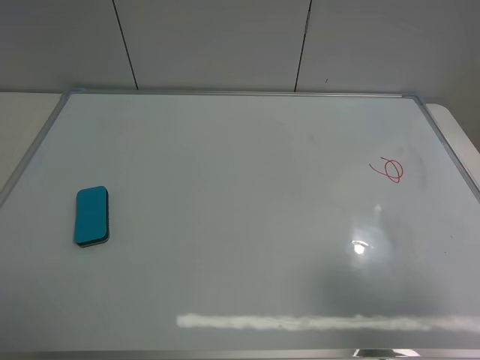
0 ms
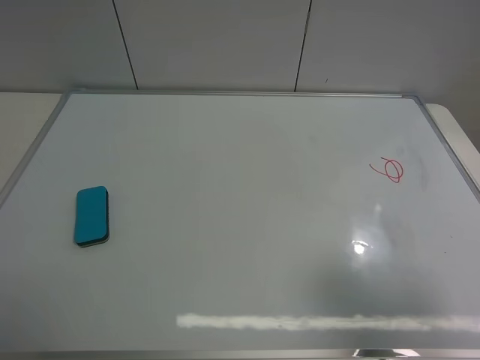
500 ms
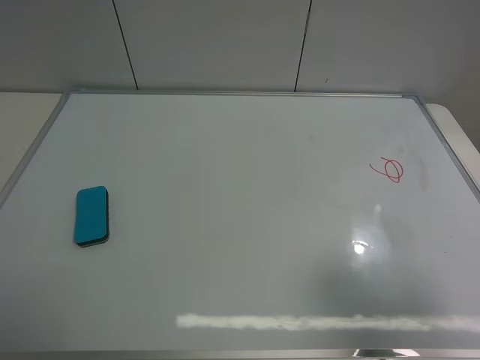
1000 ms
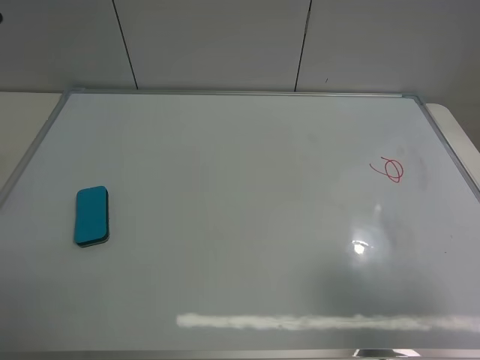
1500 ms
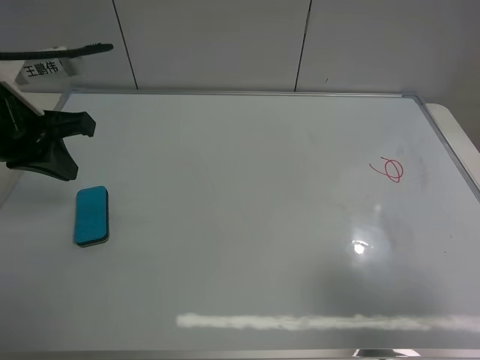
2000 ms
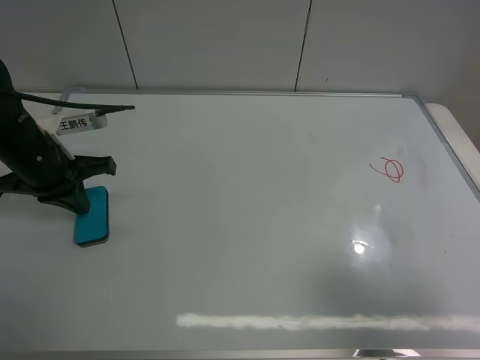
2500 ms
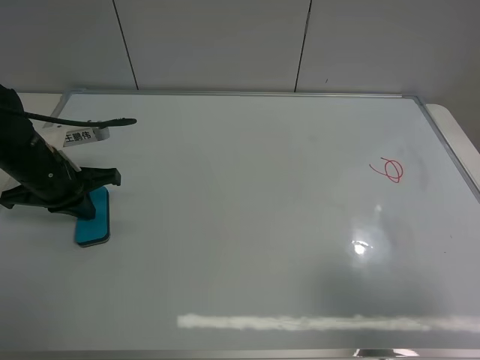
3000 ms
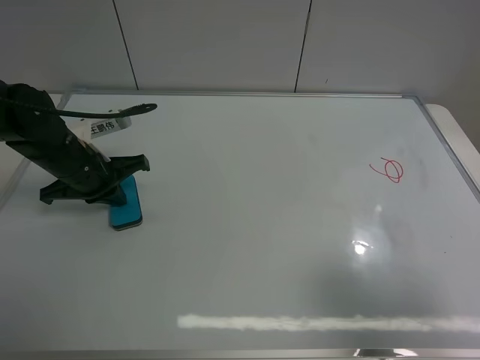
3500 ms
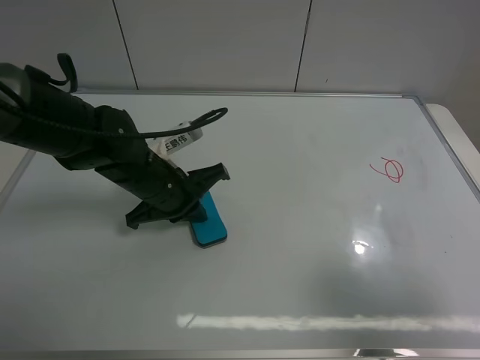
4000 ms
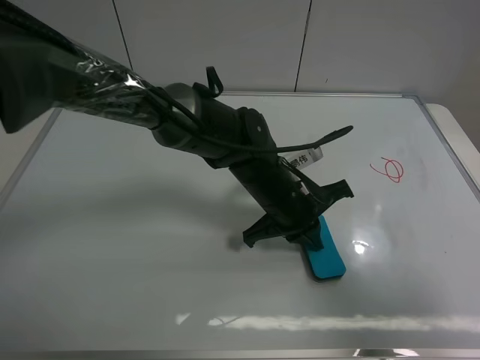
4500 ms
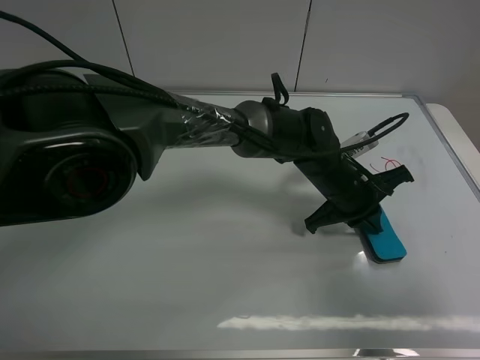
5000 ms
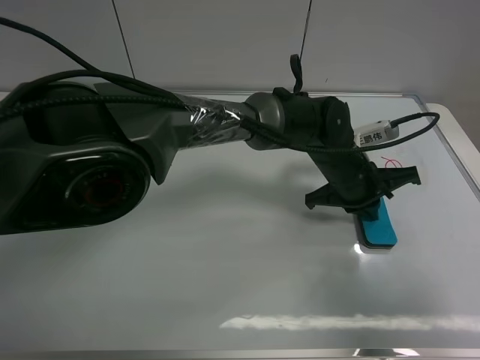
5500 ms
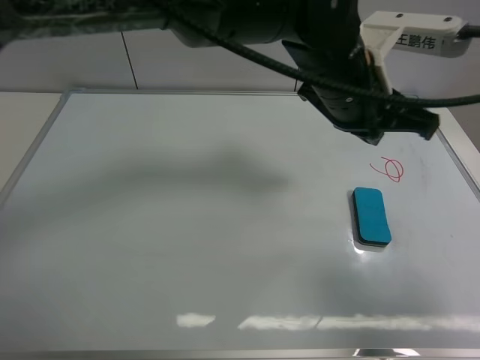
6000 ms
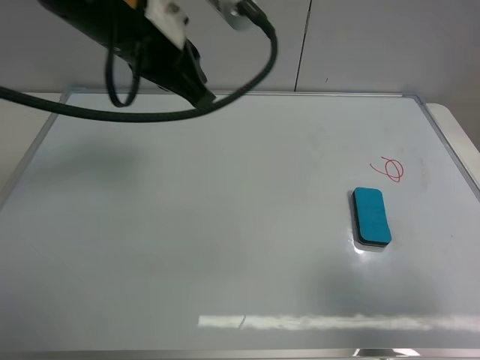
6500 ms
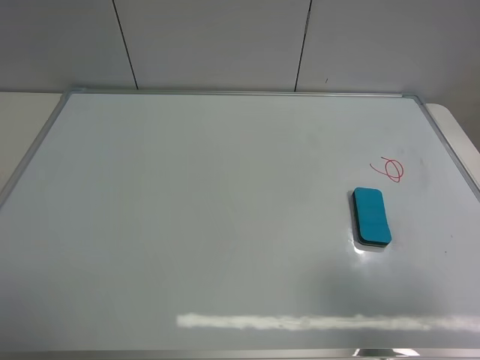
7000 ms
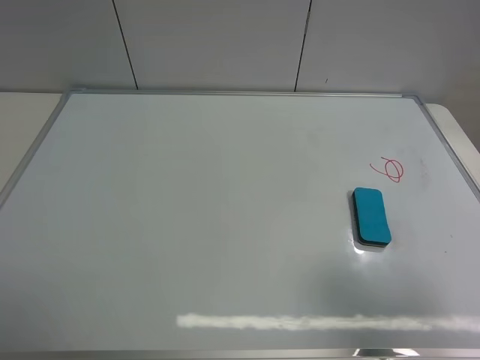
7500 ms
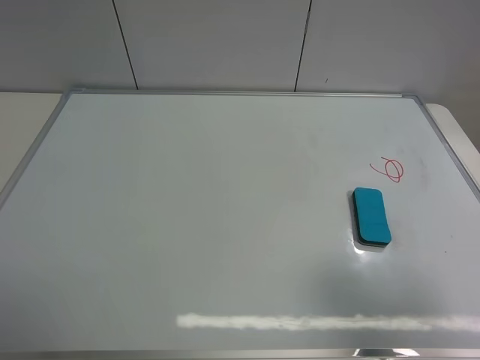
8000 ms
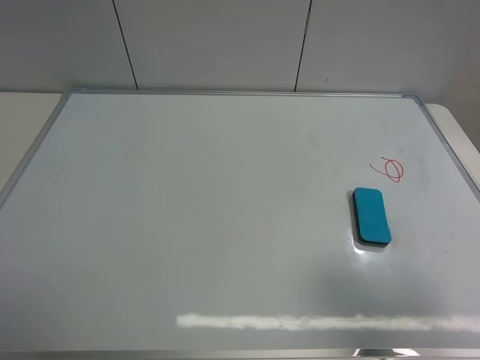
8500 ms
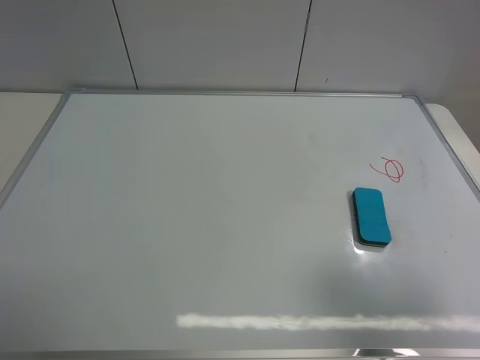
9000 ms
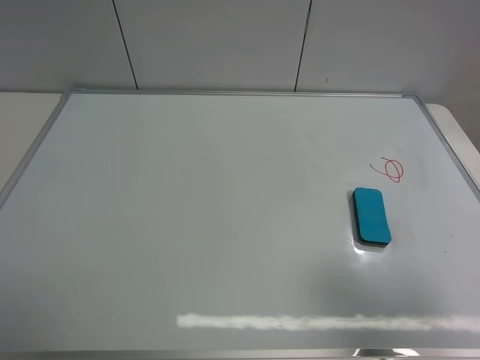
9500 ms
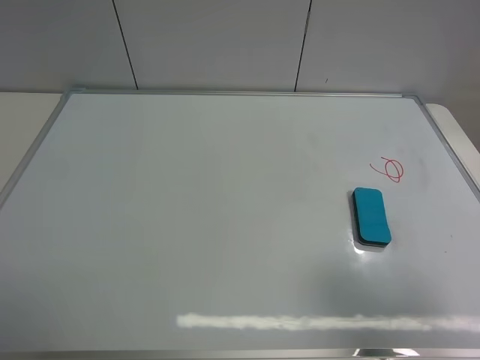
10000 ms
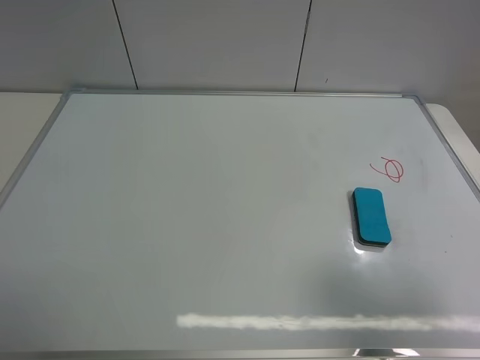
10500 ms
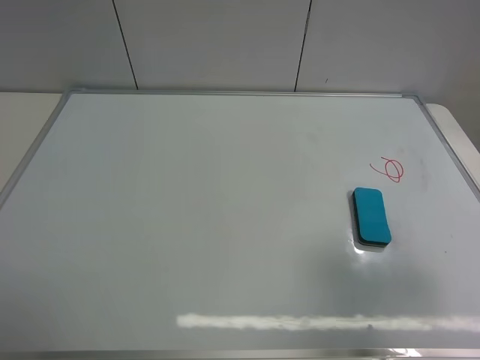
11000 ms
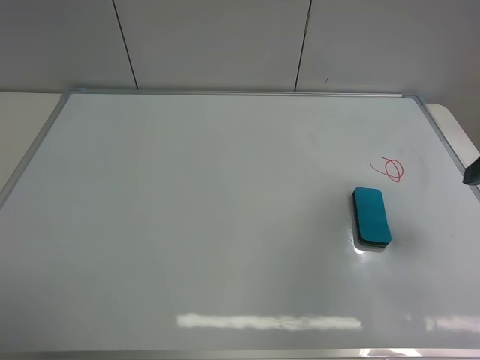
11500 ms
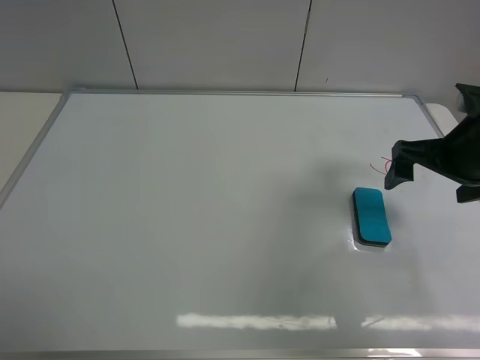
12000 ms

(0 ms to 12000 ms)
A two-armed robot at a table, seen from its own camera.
Task of the whole recording: use the left gripper to place the eraser in the right, use the right gripper to pick up the eraser, wipe the notes on the whiteboard clean, and then put it down.
Step, 0 ms - 5500 ms: Move the board eraser to the right of the whiteboard with left gripper.
0 ms - 2000 ms: The left gripper travels forward by some 25 cm, and closes.
2000 ms - 4000 ms: The left gripper heads downward and to the right, covering about 20 cm.
4000 ms - 6000 ms: The left gripper is displaced to the right and upward by approximately 25 cm.
6000 ms - 8000 ms: The left gripper shifts some 50 cm to the left and backward, and opens.
10000 ms - 12000 ms: The right gripper heads forward, covering some 25 cm.

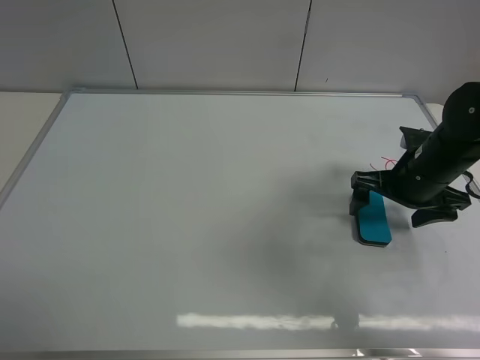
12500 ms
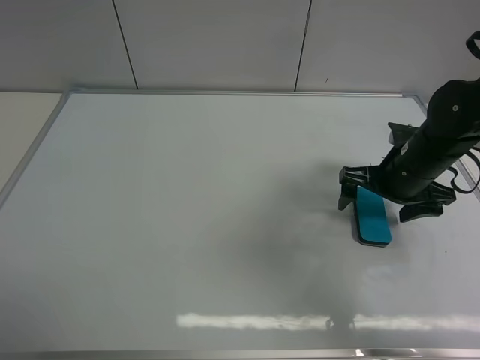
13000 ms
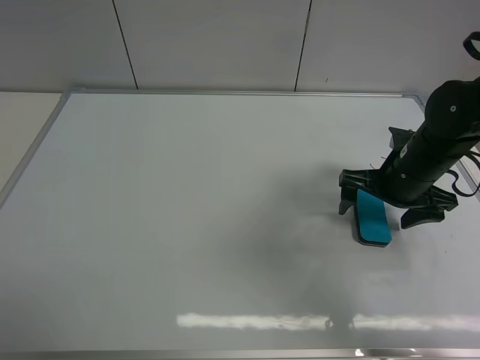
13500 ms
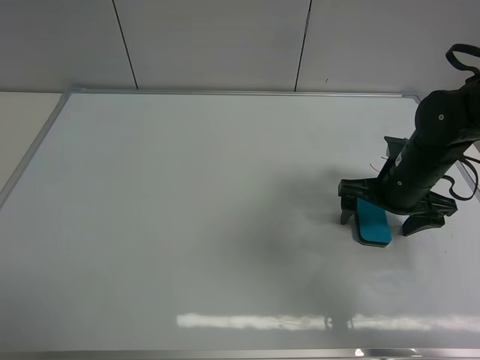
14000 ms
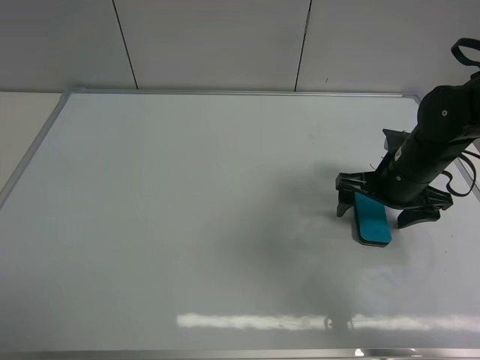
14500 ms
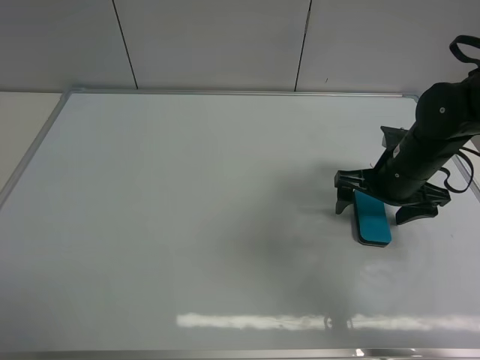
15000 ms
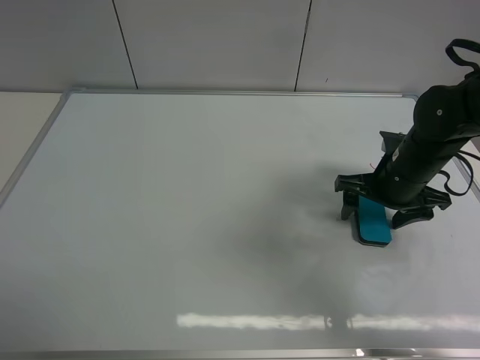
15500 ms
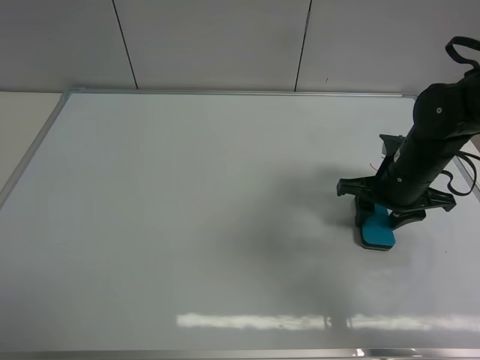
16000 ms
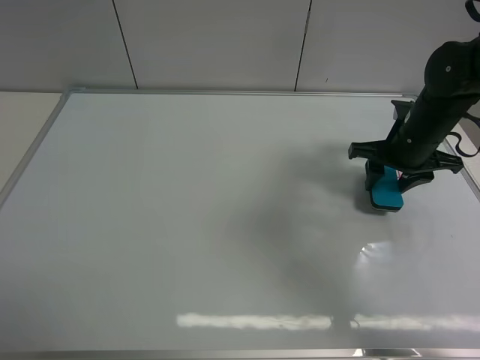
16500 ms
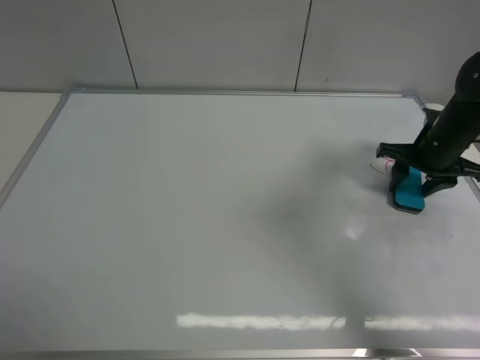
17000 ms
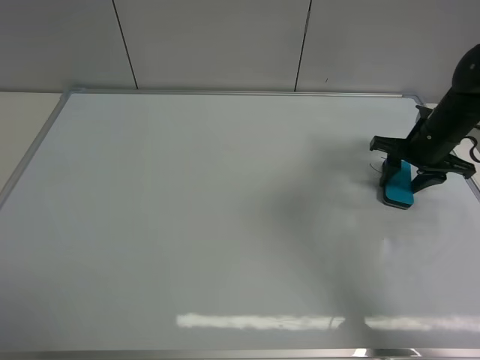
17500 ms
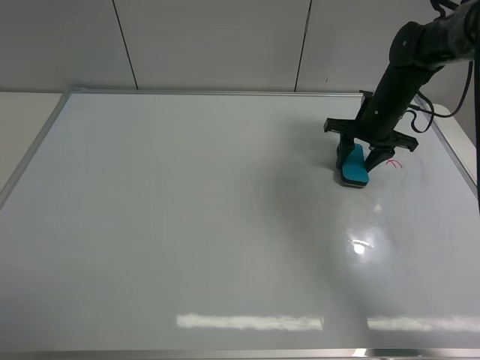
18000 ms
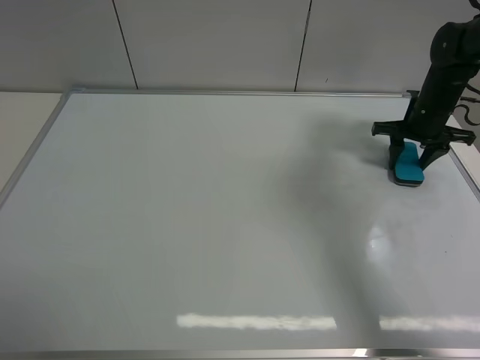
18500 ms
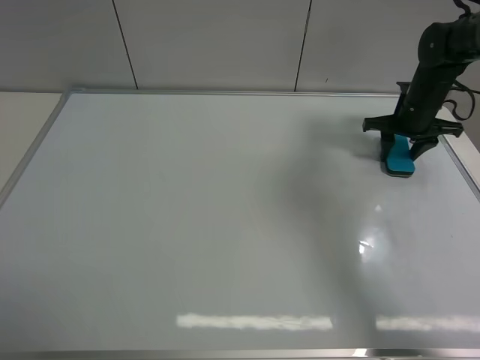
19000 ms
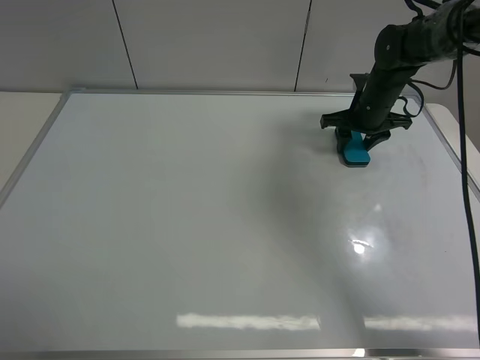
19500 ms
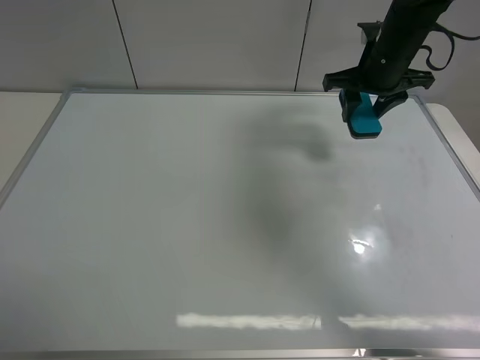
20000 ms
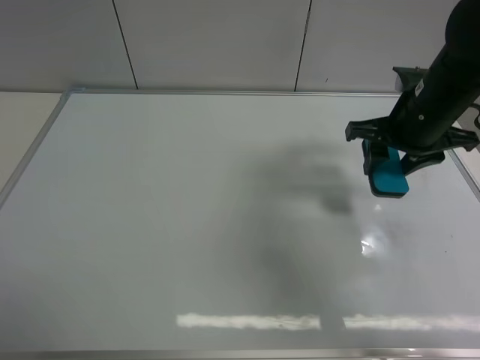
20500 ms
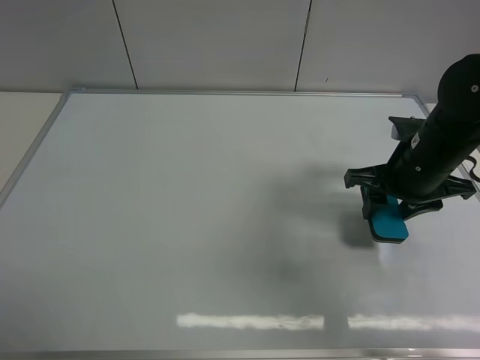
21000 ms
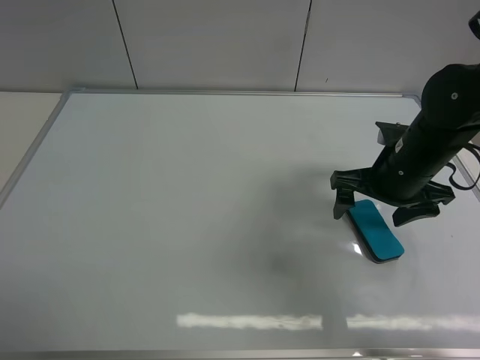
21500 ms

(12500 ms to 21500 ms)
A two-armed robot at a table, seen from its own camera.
Task of the whole recording: use the left gripper to place the eraser in the right, use the right gripper to pick up the eraser, wipe the notes on the whiteboard clean, and then put it down.
Step, 12500 ms - 16000 ms: Pick up the board eraser with right gripper.
Step, 16500 ms - 19500 ms: Wipe off the writing on the board with right gripper.
Step, 20000 ms - 21000 ms: Move the board eraser to the right of the whiteboard with right gripper.
12500 ms - 14500 ms: There are only small adjustments of the grippers.
14500 ms - 17000 ms: The right gripper heads to the right and forward, covering roughly 10 cm, and closes up.
17000 ms - 19500 ms: The right gripper swings left and right, roughly 10 cm each way, with 2 reversals.
19500 ms - 21500 ms: The right gripper goes approximately 20 cm backward, and opens up.

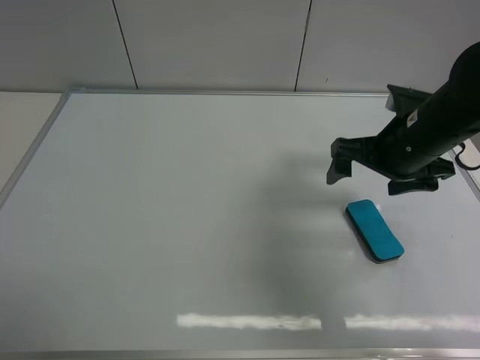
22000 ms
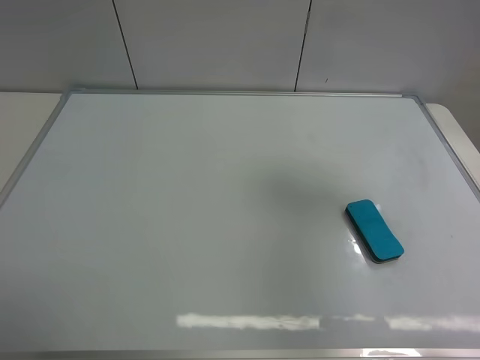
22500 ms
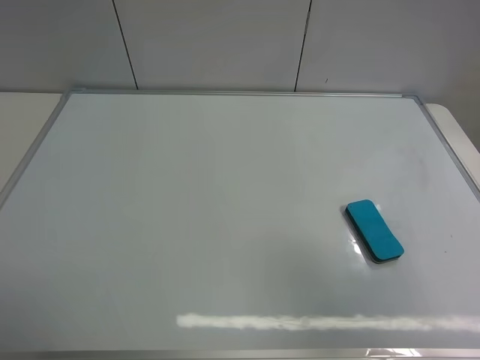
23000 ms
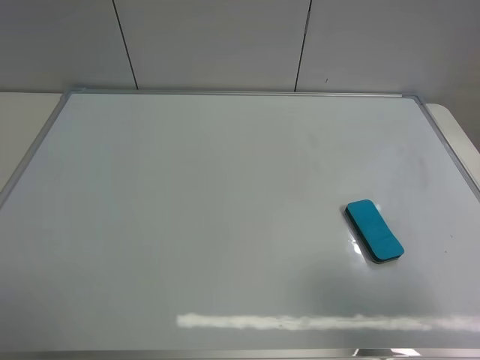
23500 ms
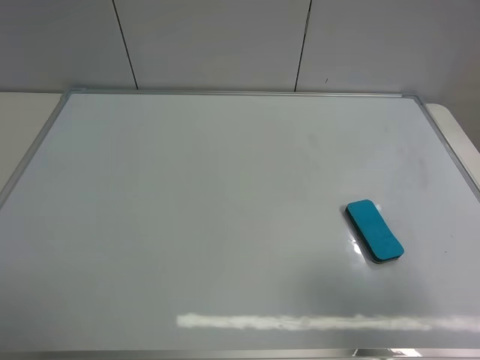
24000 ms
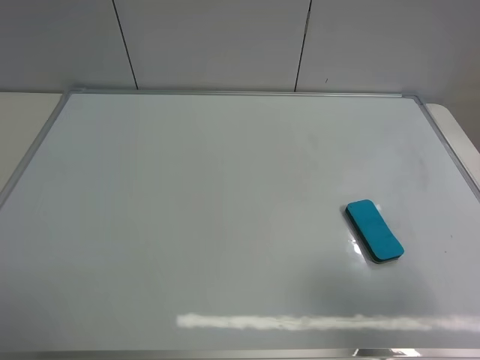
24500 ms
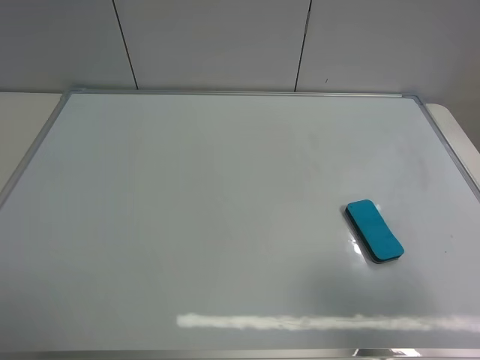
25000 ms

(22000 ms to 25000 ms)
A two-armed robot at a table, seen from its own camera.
Task of the whole recording: use the left gripper to place the eraser in the right, use the right gripper to pick up the eraser, wipe the notes on the whiteboard clean, and then put it down.
22000 ms - 23500 ms: The right gripper moves backward, roughly 25 cm.
23500 ms - 25000 ms: Both grippers stay put.

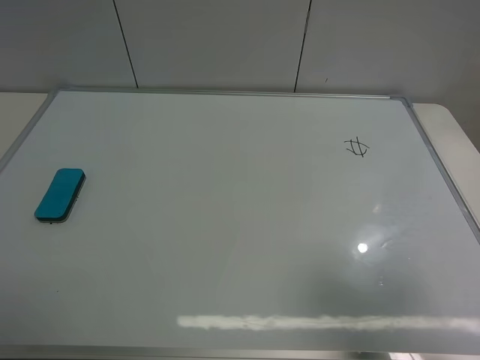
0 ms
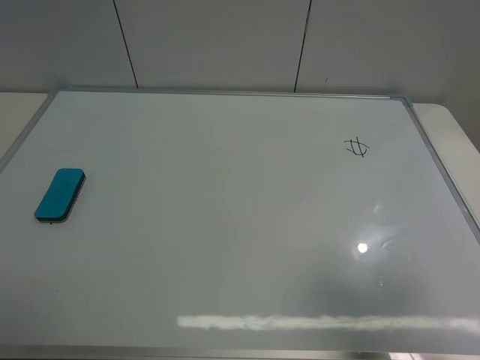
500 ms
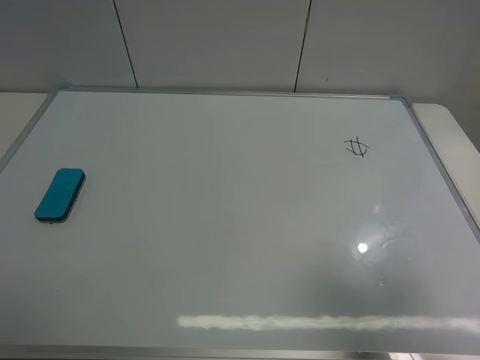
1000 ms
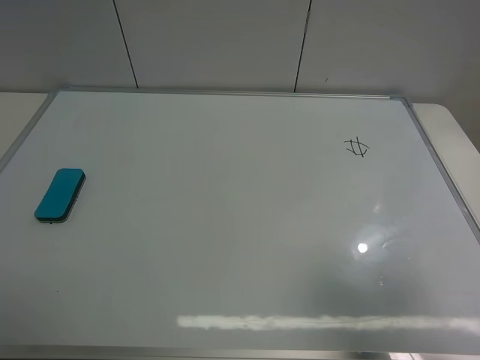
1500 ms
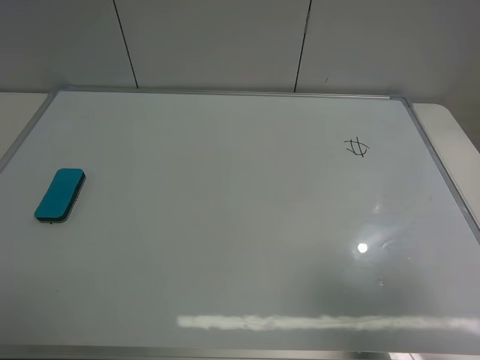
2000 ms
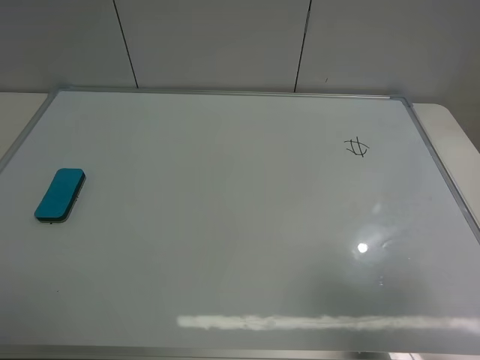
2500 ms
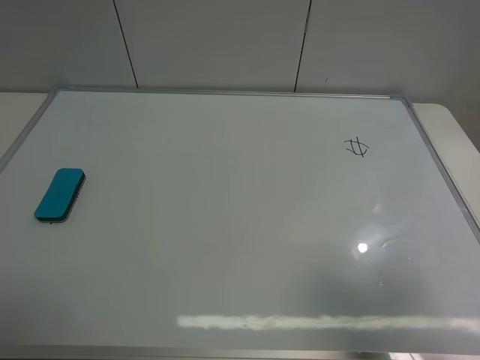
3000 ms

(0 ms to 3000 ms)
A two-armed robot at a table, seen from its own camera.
Task of the whole recording: use the left gripper to place the eraser in the right, use the right gripper to pick up the eraser, wipe the notes on the whiteboard clean, and then put it down.
0 ms - 1500 ms: Both grippers stay about where they are.
